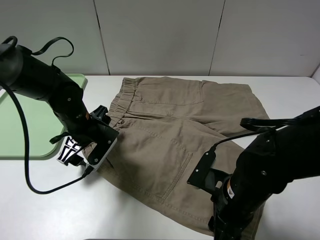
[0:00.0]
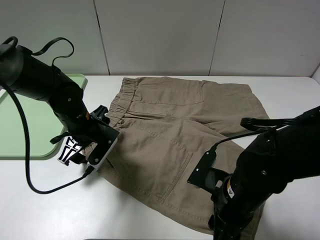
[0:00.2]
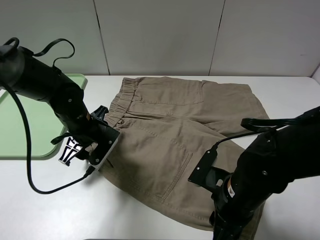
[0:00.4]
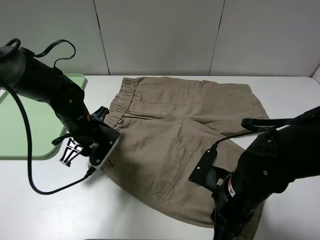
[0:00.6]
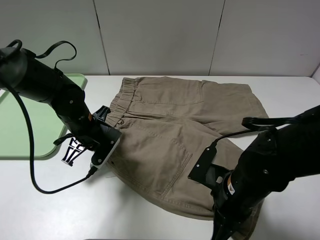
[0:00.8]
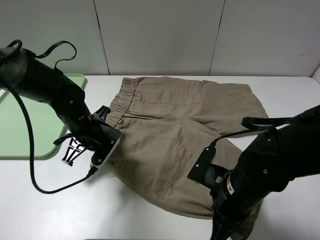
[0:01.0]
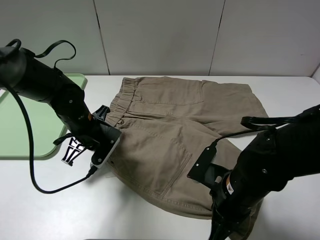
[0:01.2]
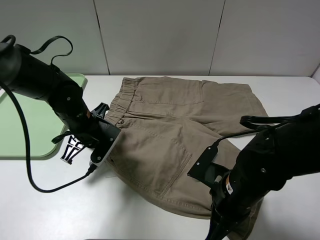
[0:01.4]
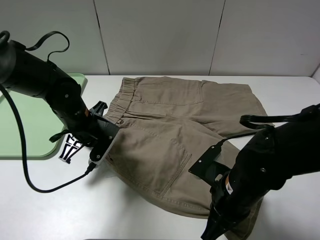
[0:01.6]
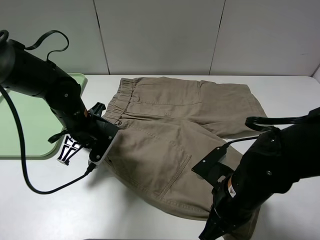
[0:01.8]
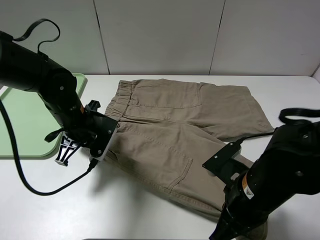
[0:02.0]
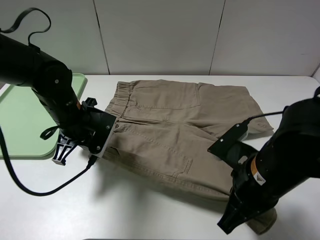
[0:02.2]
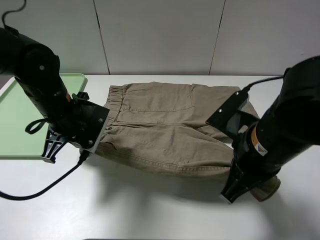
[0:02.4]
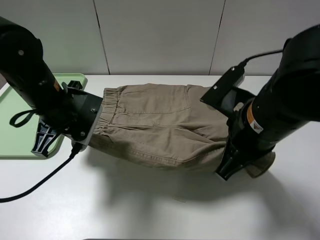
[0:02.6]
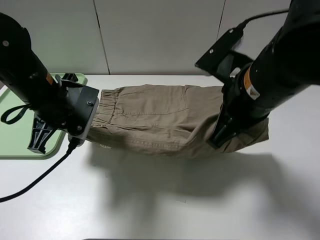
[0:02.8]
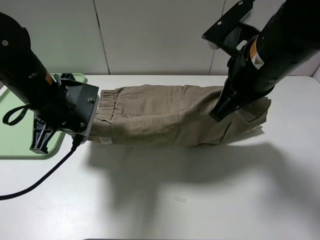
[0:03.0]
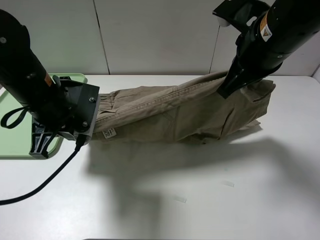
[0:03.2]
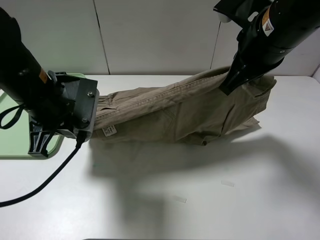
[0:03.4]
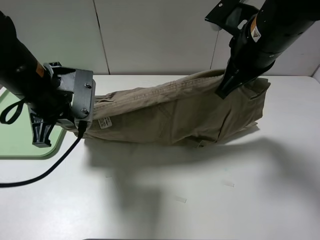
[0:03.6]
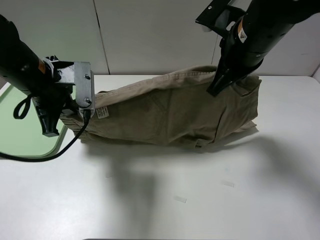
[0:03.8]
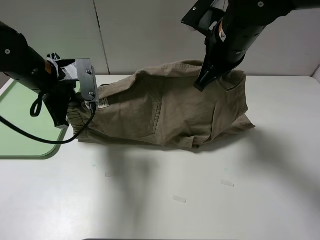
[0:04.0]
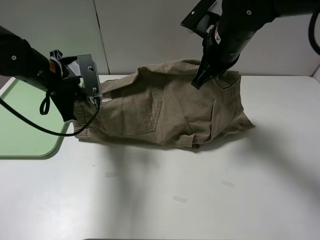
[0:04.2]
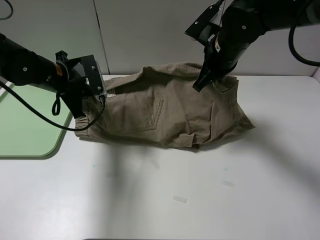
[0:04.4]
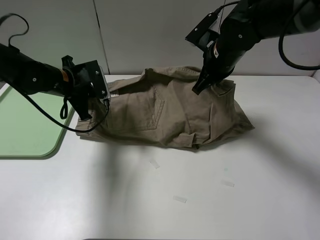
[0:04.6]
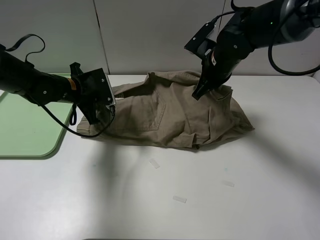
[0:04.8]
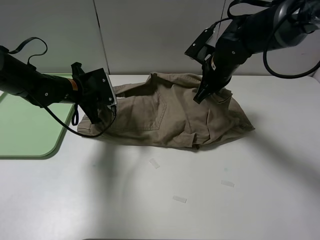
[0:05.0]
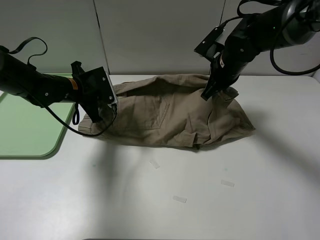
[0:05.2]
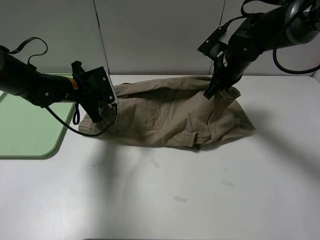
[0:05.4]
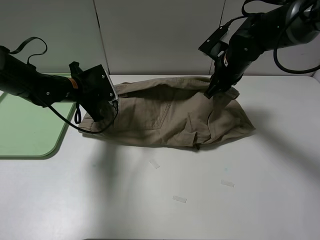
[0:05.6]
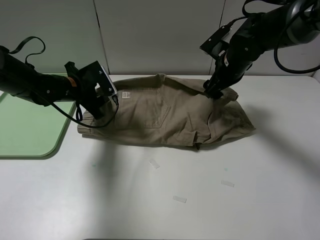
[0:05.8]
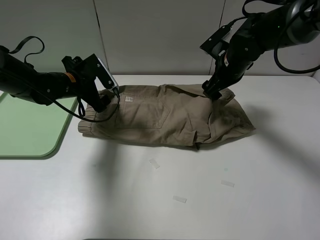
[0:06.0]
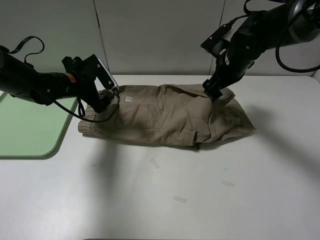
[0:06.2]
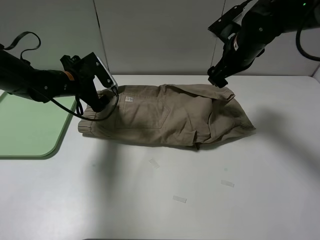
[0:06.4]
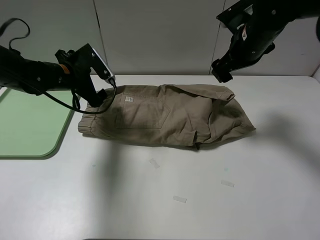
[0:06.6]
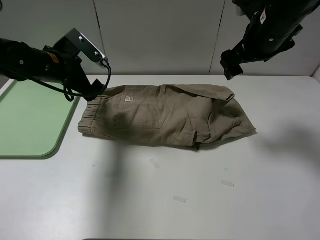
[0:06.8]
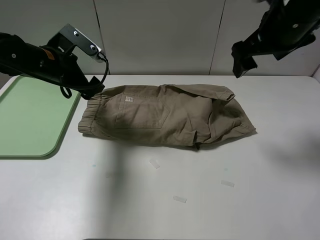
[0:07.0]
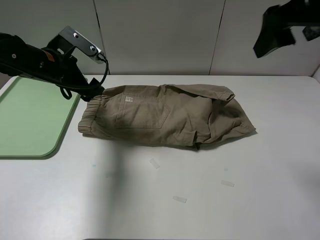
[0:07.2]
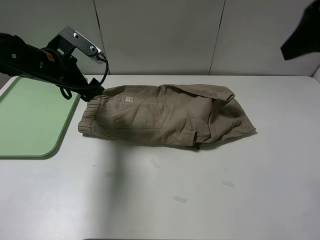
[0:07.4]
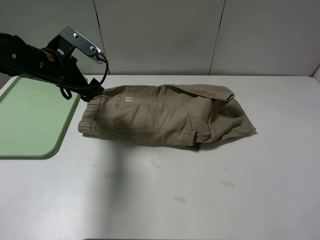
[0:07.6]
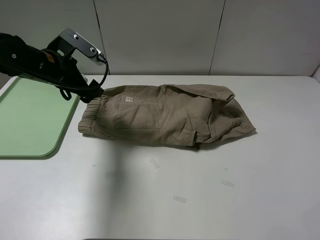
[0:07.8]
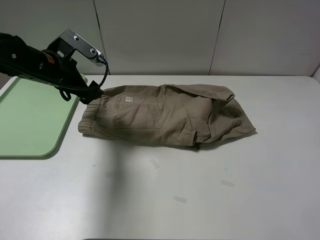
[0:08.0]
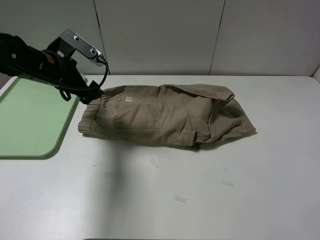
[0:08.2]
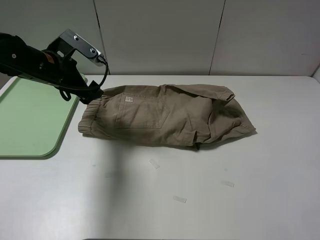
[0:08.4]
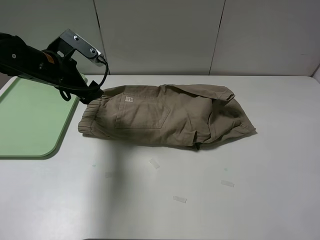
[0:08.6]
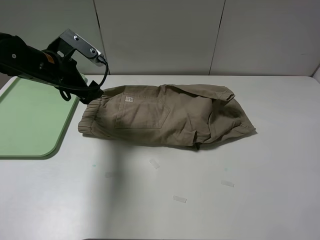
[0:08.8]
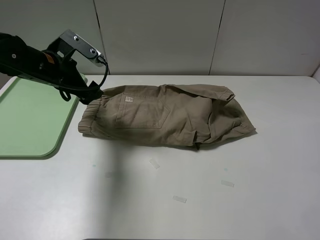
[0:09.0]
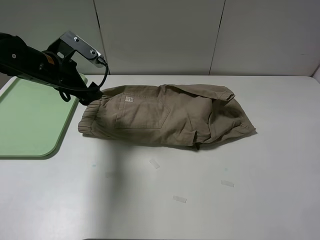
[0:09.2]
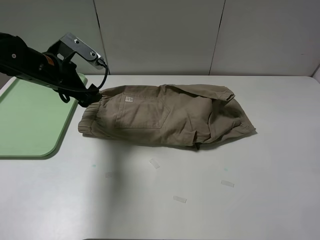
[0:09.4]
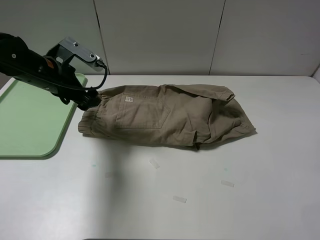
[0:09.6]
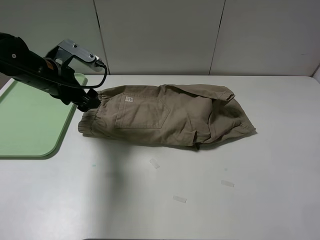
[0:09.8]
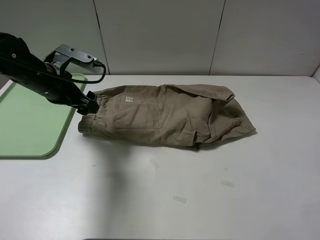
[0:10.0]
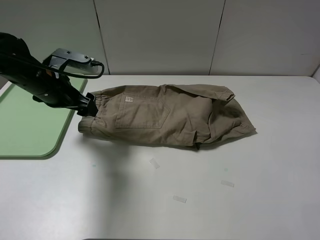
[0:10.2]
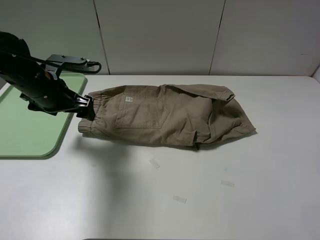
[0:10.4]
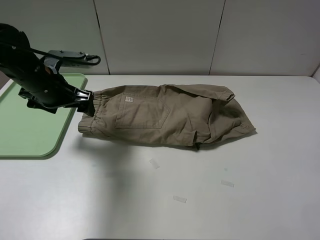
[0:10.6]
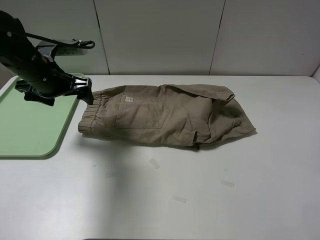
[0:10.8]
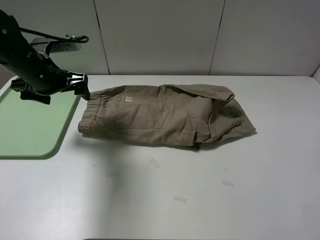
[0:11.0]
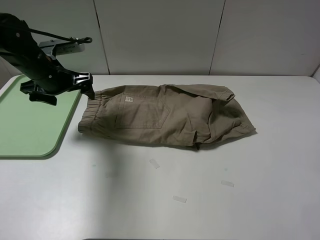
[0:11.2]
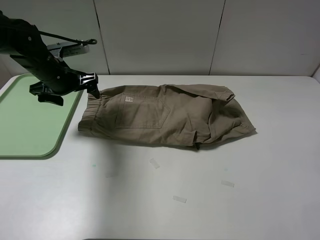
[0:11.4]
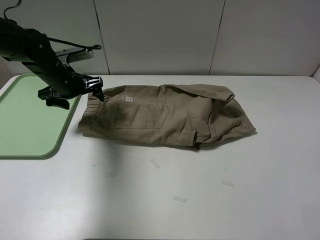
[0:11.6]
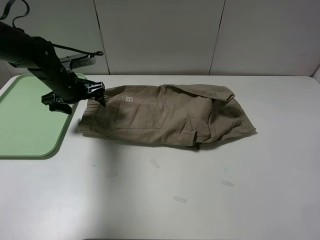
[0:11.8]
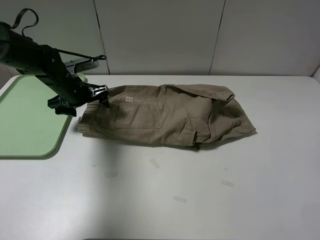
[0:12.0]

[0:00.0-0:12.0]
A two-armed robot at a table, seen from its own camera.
Task of the whole recording: fold the khaki jeans in half with two grippers, then fold them in half again, and use the left claw to place the folded fold khaki jeans on the tray.
Step, 1.2 to 6.0 s: Fold the khaki trousers upwards with the left gripper.
0.0 to 1.6 s: The left gripper closes; the right gripper closes up.
1.6 to 3.0 s: The left gripper travels upward by about 10 cm; the right gripper travels upward and forward by about 20 cm.
3.0 to 4.4 s: The left gripper moves forward, some 10 cm; the right gripper moves forward and downward, some 15 cm.
4.4 to 6.0 s: The left gripper opens. The right gripper moves some 5 cm, and opens.
6.0 to 7.6 s: The right gripper moves backward and upward, roughly 35 cm, while the left gripper shifts about 5 cm upward.
10.4 to 12.0 s: The left gripper moves forward and downward, some 10 cm.

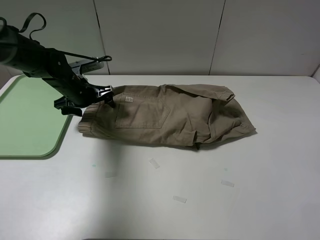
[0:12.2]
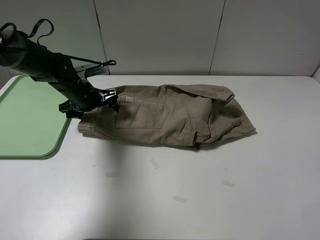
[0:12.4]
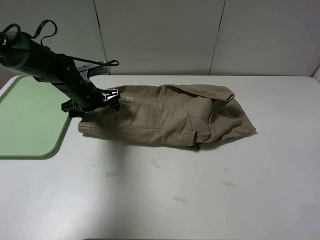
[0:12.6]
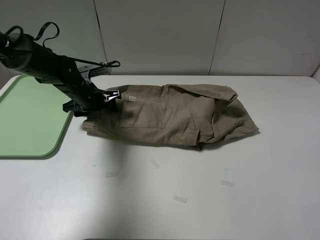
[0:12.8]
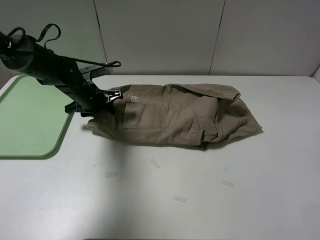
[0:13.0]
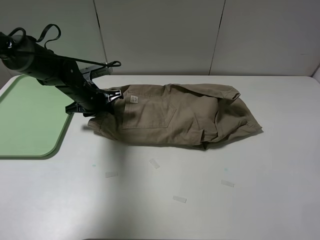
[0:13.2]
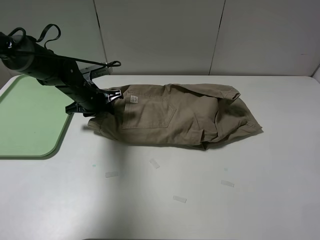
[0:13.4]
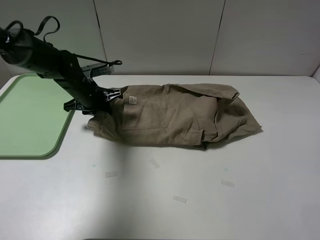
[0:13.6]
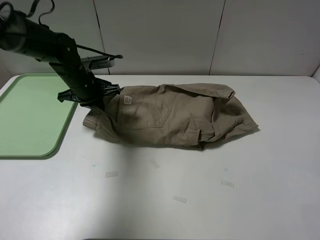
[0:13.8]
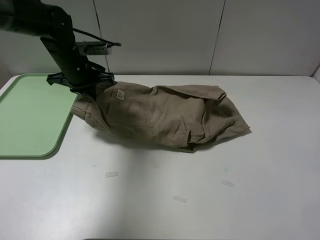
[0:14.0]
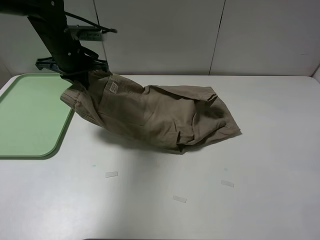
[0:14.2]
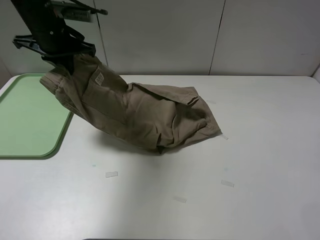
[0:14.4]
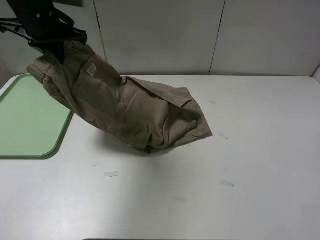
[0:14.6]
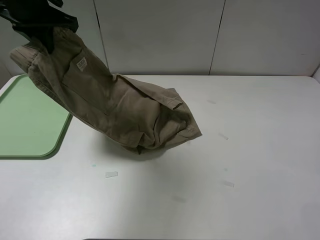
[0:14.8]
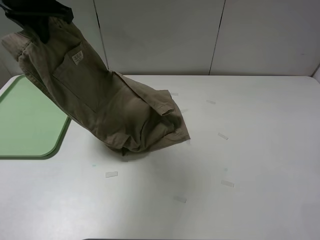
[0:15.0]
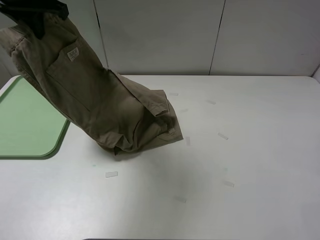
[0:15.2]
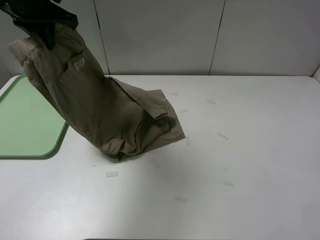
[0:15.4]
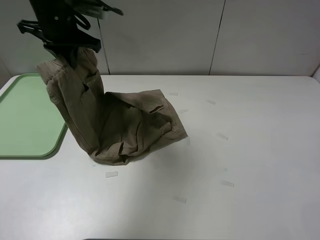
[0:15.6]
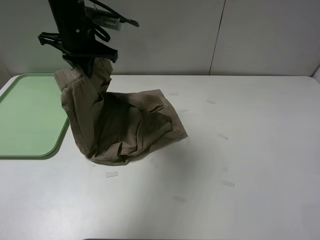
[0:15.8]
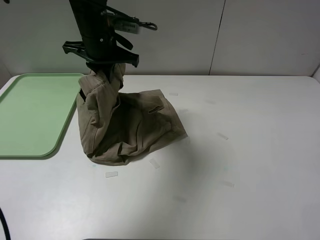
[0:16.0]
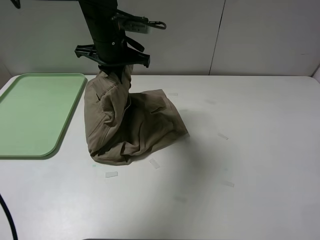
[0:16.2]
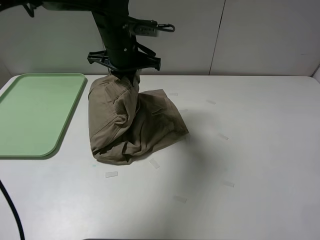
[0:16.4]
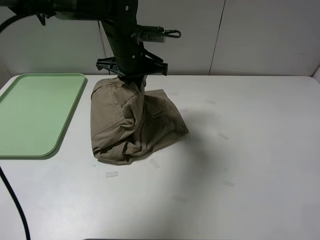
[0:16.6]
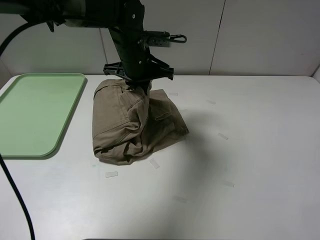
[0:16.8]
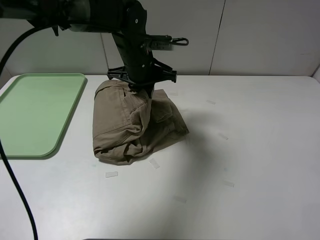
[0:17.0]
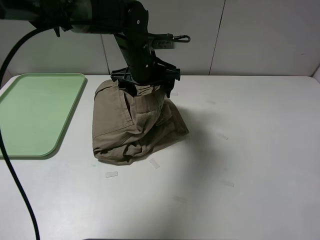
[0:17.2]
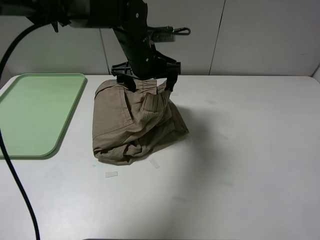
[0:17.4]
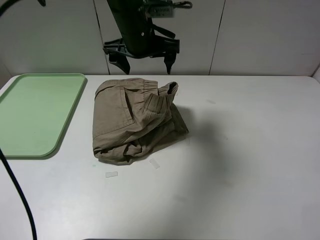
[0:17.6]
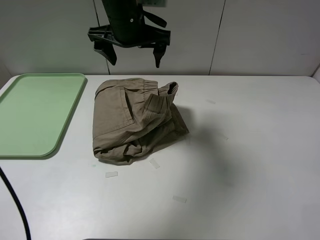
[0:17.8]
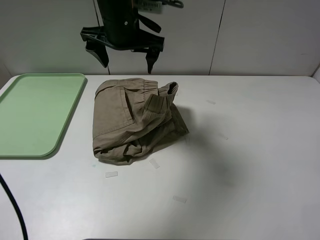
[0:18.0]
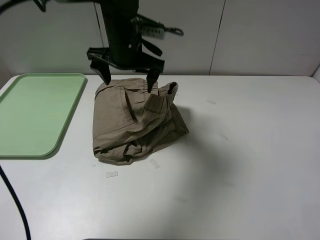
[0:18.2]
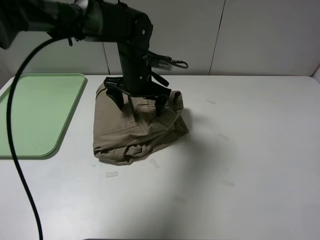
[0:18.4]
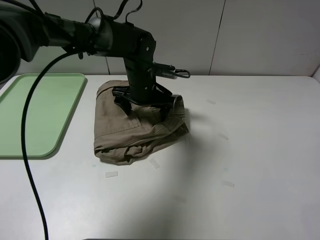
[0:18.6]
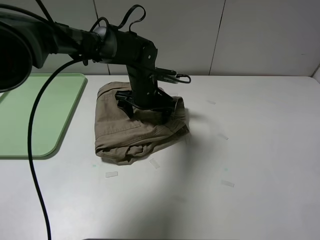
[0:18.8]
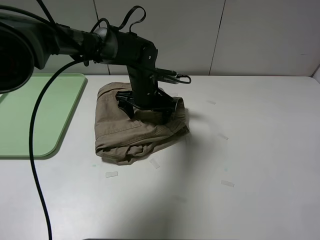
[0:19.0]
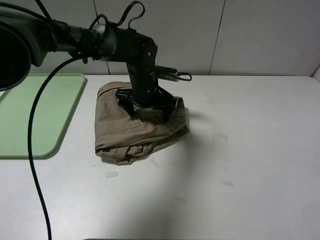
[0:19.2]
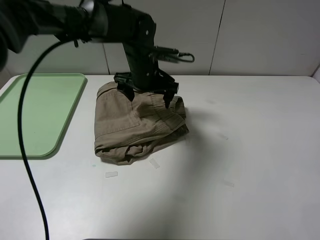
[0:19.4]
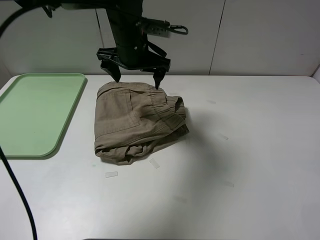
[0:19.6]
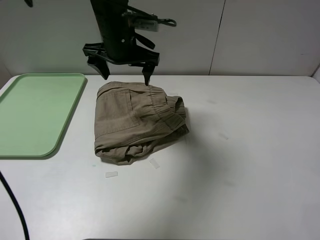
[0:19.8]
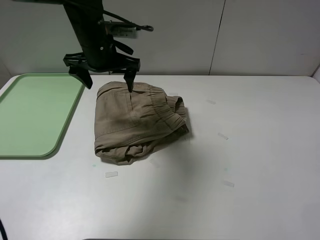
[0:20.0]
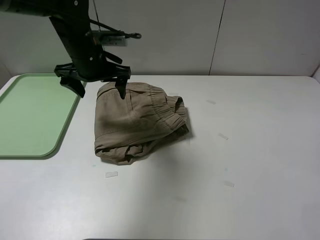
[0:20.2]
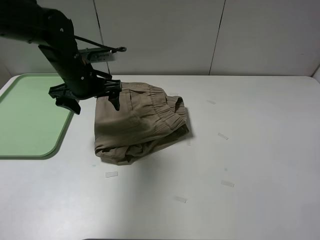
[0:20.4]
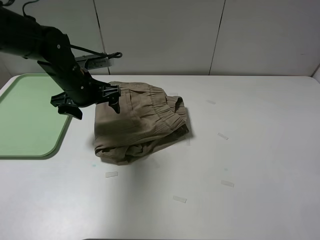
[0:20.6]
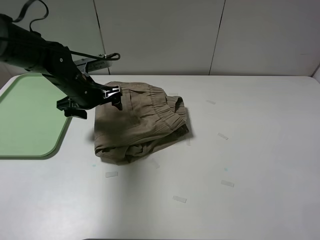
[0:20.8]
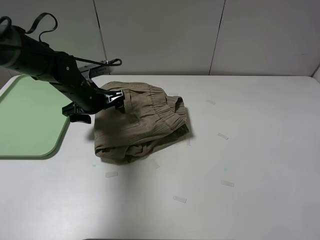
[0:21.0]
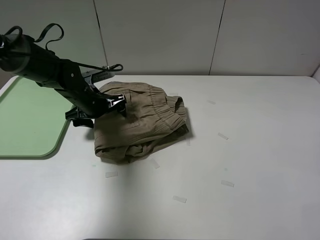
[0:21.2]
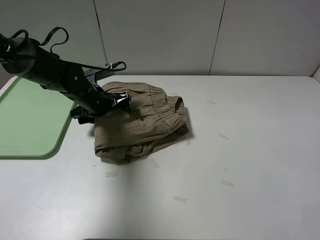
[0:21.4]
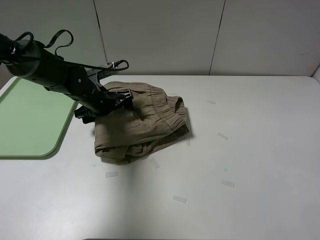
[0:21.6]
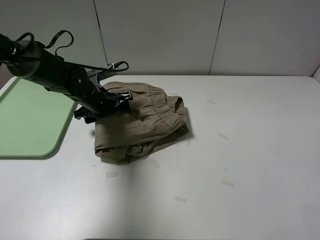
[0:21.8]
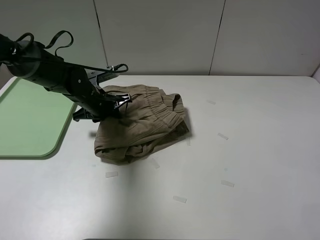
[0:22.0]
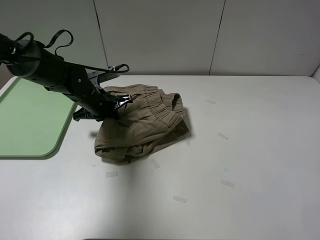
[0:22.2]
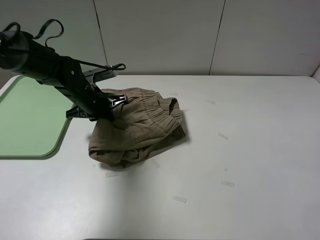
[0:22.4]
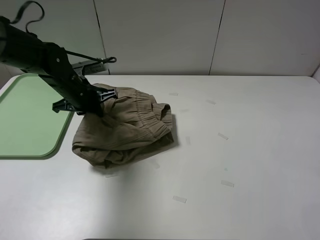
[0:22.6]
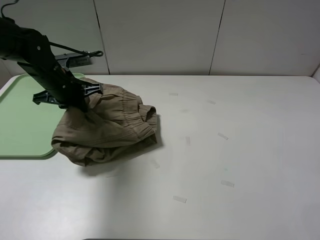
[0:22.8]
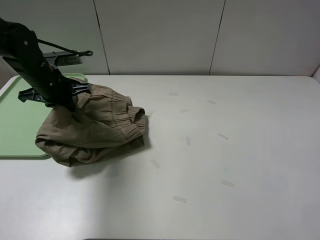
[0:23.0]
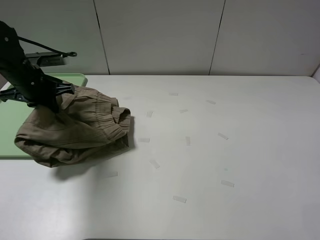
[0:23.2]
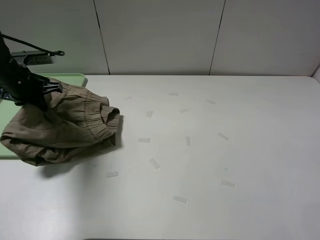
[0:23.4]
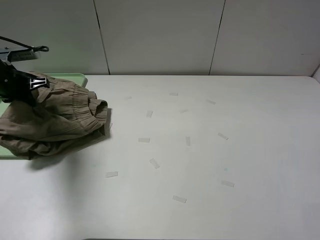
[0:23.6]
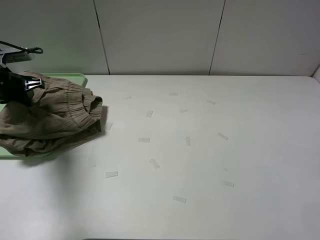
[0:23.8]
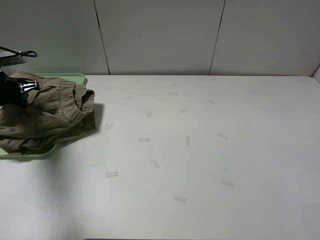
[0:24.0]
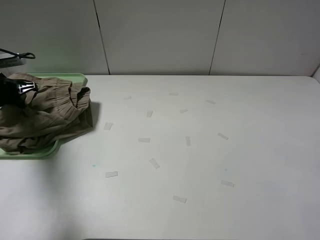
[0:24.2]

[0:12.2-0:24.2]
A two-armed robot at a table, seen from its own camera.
Task of the whole recording: fold the khaki jeans in half with two grippers, then fold them in half again, and use the left claw to place the folded fold khaki jeans on the tray.
Step, 13.2 to 17.4 s: Fold the khaki trousers from left to right with the left gripper.
Step, 17.6 to 22.2 s: Grasp the khaki trousers with the left gripper.
12.2 to 13.8 s: The left gripper closes its fingers.
13.8 to 15.2 s: The left gripper shifts about 20 cm upward.
15.2 to 16.6 s: The left gripper travels to the right and downward by roughly 20 cm.
16.6 to 18.2 s: The left gripper travels upward and back again, roughly 5 cm each way, and opens up.
18.2 to 19.8 s: The left gripper goes downward and returns, approximately 15 cm each way.
19.8 to 21.2 s: The left gripper is displaced downward and to the left by some 15 cm.
21.2 to 22.6 s: The left gripper closes up.
22.6 to 24.2 s: The left gripper is displaced to the left by approximately 20 cm.
